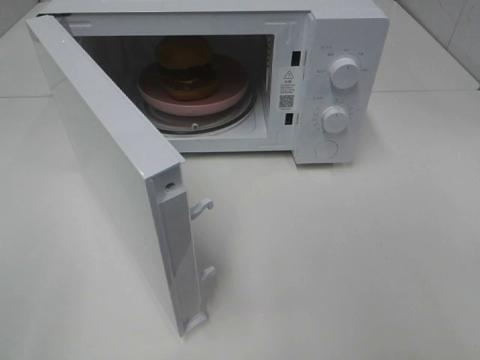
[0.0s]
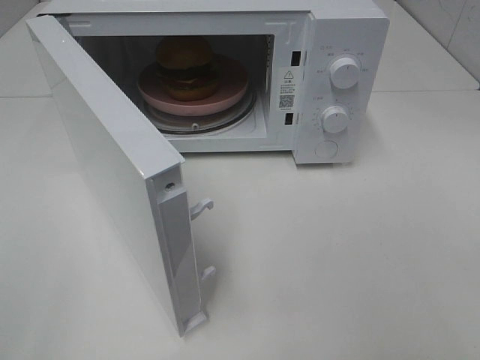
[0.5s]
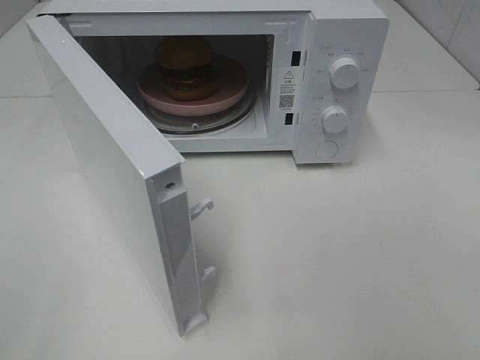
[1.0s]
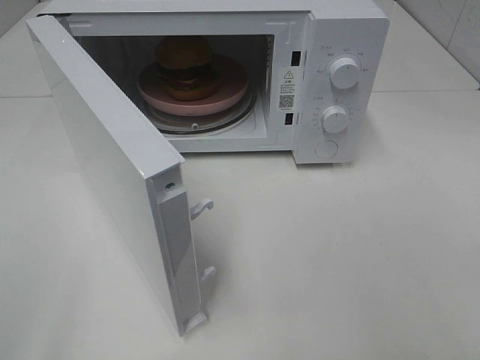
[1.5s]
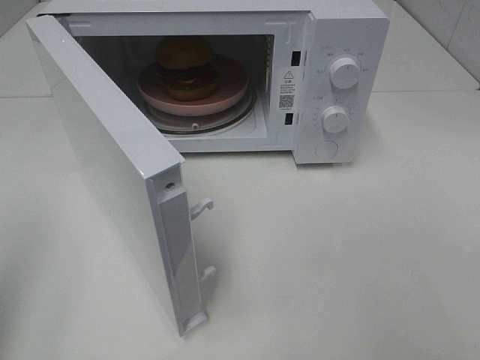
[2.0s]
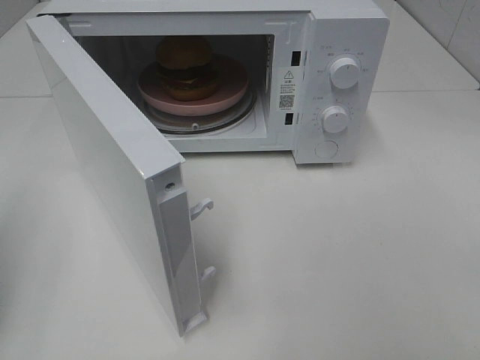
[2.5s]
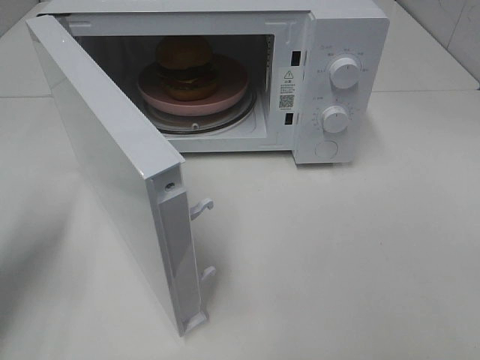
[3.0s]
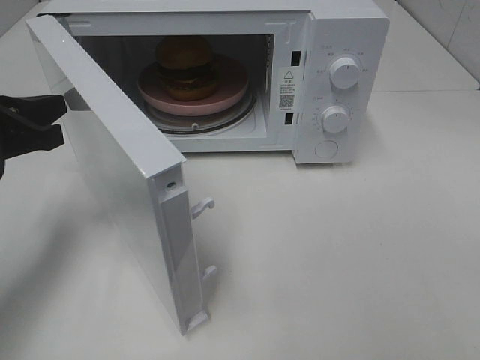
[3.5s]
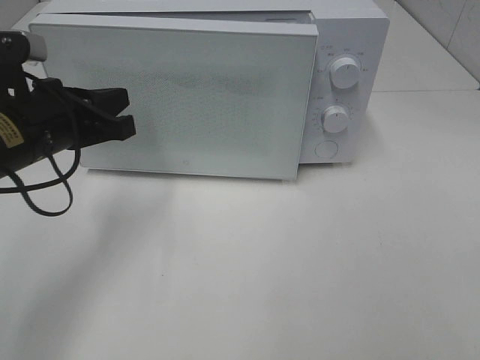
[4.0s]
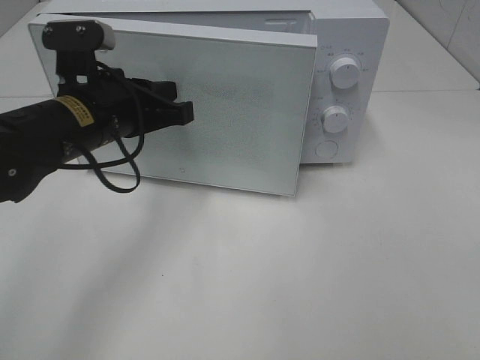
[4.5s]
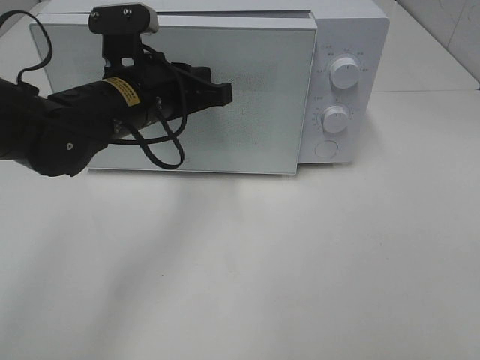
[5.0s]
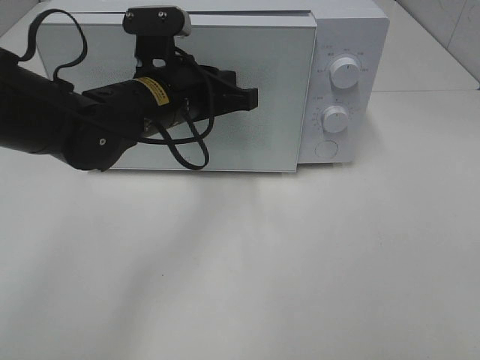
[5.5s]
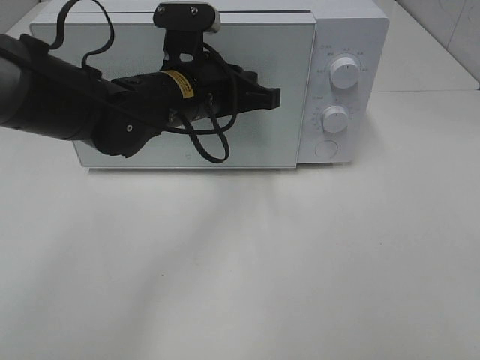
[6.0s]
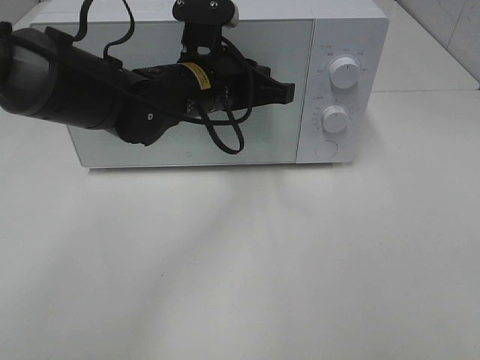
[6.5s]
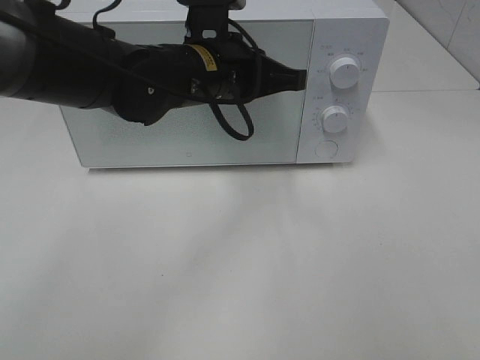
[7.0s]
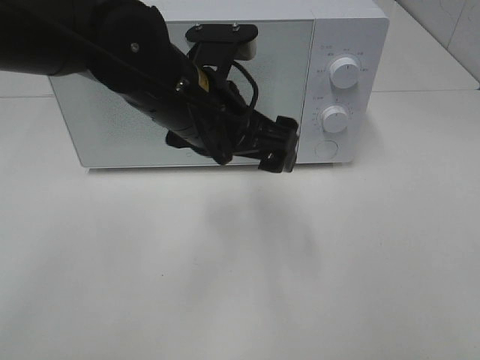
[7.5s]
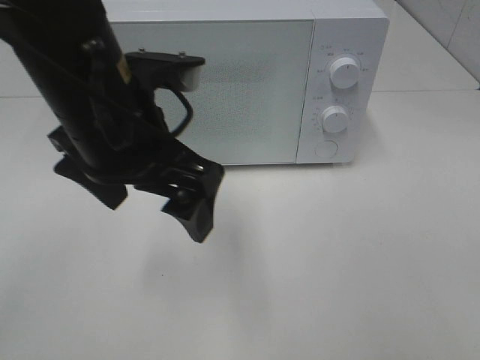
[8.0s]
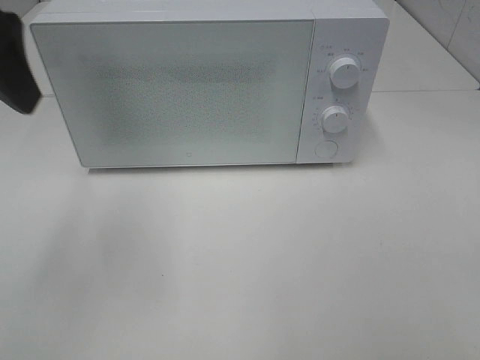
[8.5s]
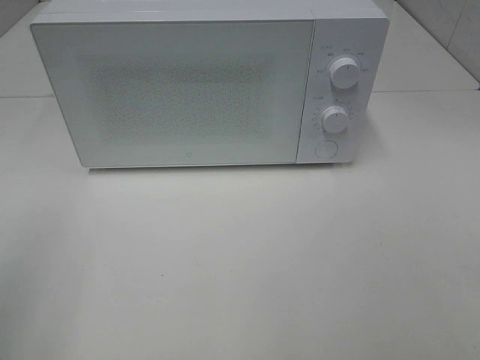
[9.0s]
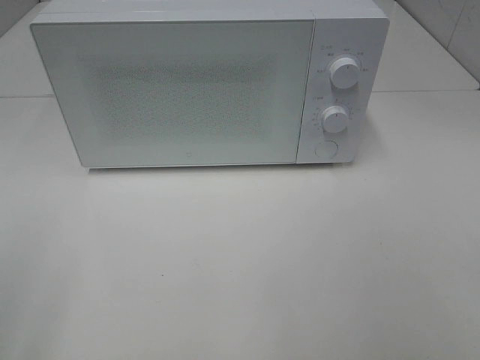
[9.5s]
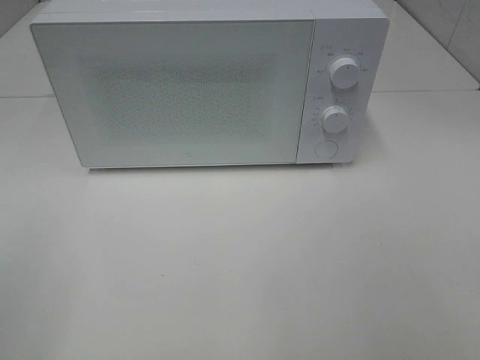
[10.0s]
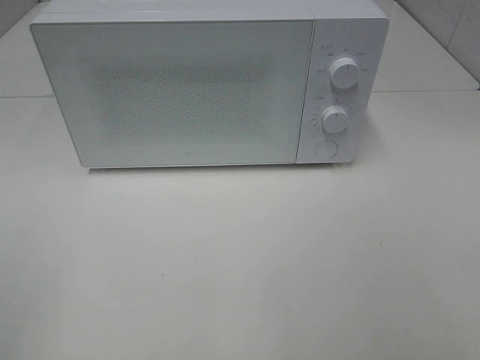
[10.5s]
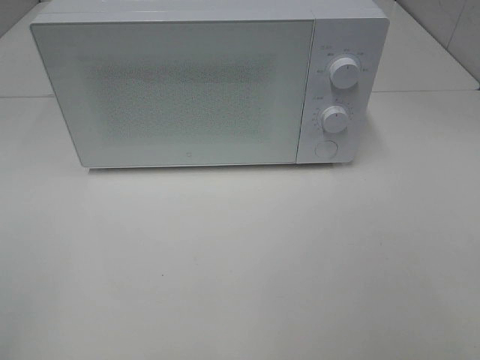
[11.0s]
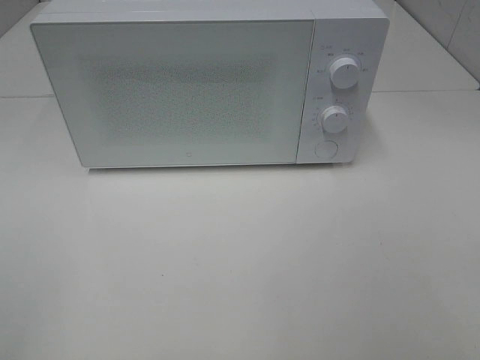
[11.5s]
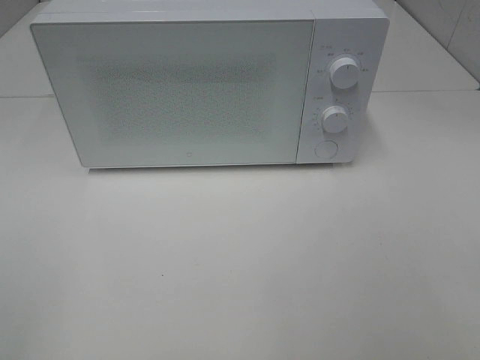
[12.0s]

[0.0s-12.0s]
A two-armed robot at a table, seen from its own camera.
Task of the whole recording: Heat the burger.
Step, 0.0s to 6.0s: Left hand: close the microwave door.
2.0s to 4.0s: The left gripper heads forward, to the right and downward, covering roughly 25 cm.
4.0s to 6.0s: The left gripper goes about 15 cm to the right and forward.
6.0s to 8.0s: The left gripper is displaced backward and upward by about 15 cm, and opens up.
8.0s to 10.0s: The left gripper goes approximately 30 cm to the left and backward.

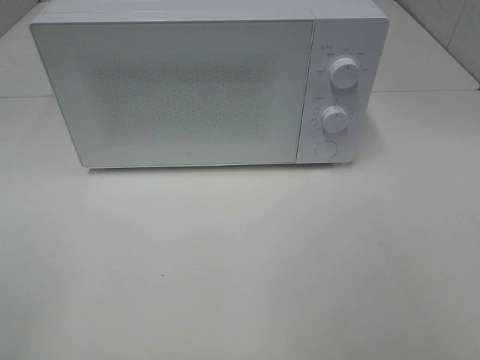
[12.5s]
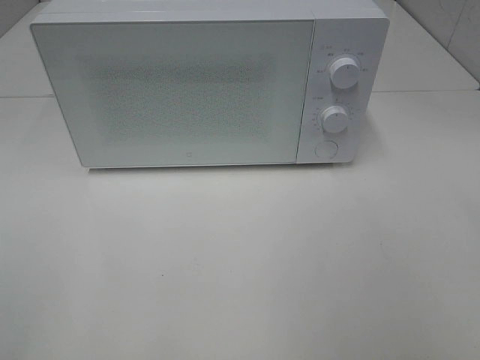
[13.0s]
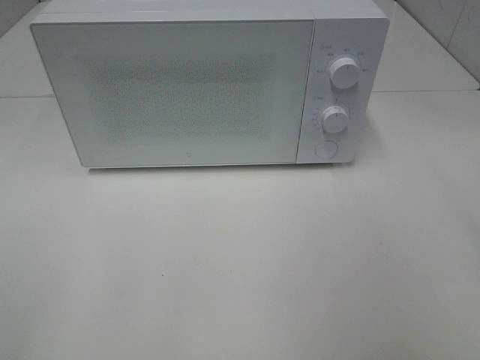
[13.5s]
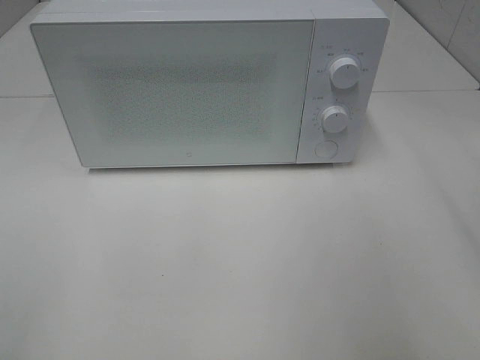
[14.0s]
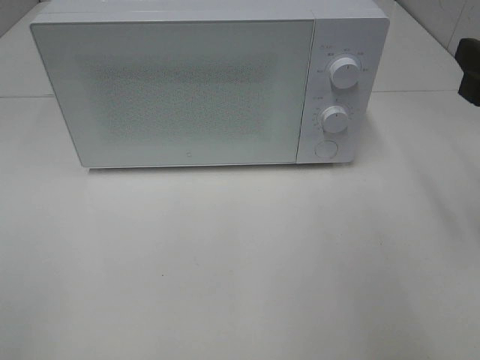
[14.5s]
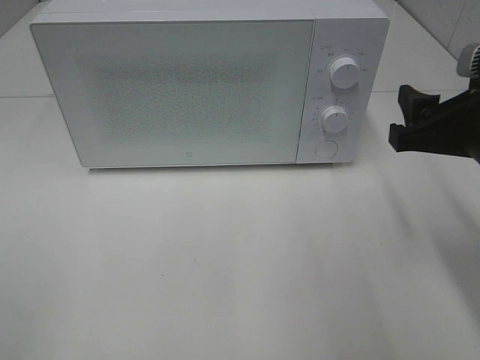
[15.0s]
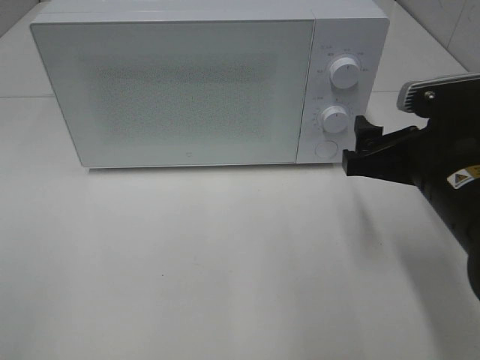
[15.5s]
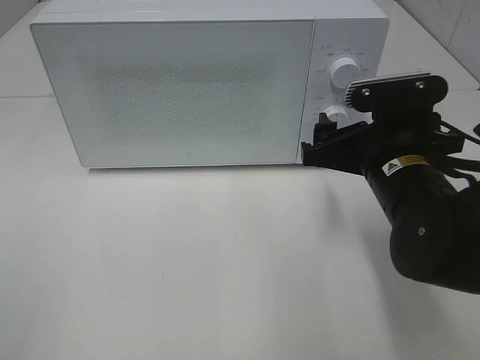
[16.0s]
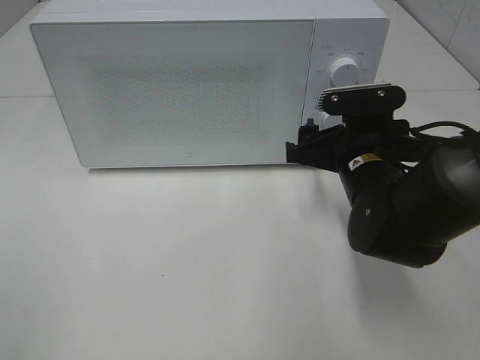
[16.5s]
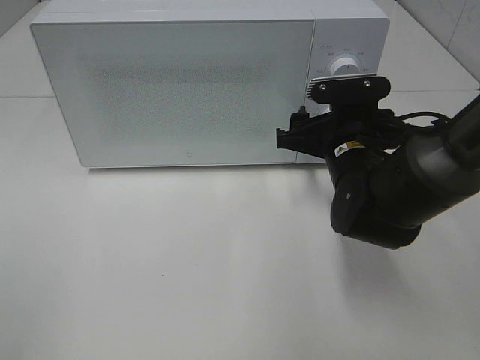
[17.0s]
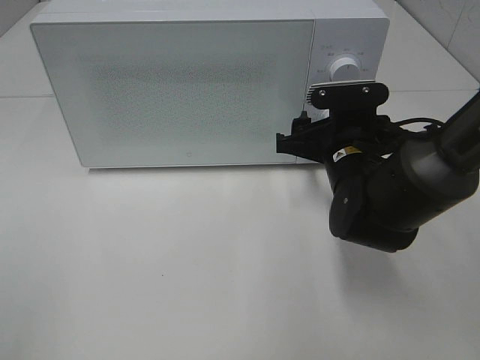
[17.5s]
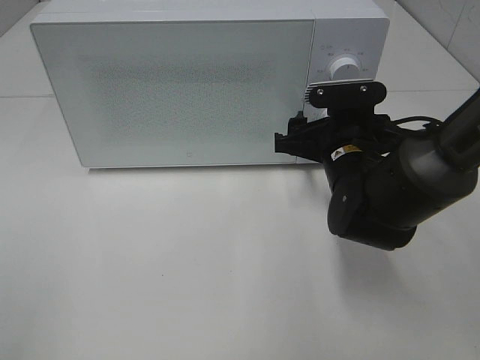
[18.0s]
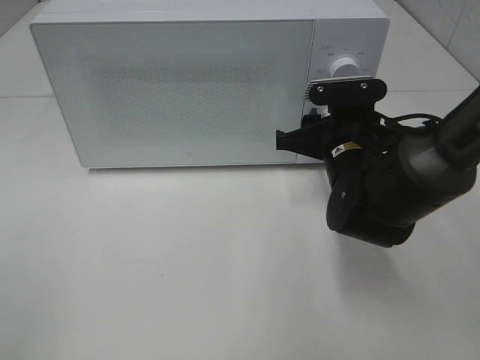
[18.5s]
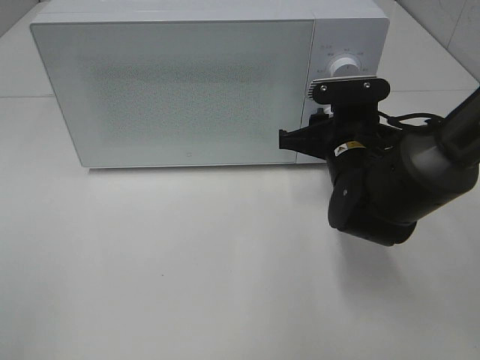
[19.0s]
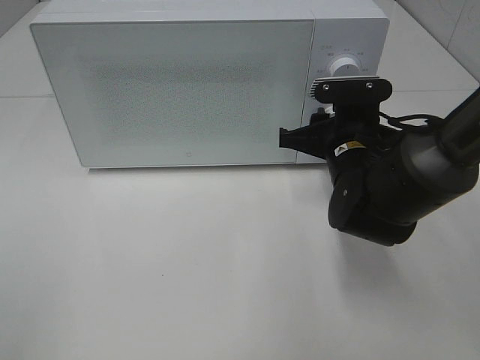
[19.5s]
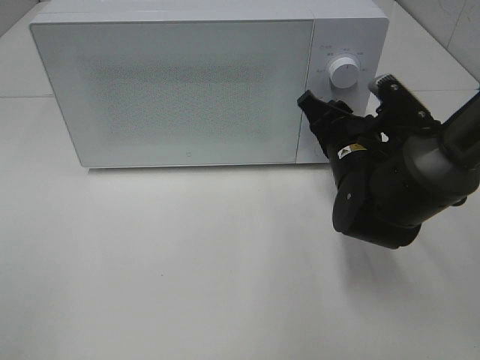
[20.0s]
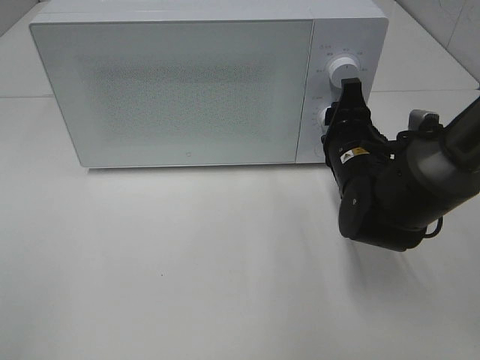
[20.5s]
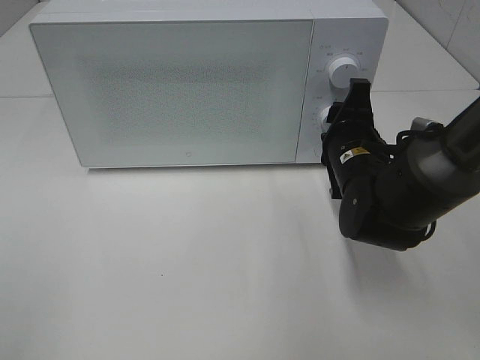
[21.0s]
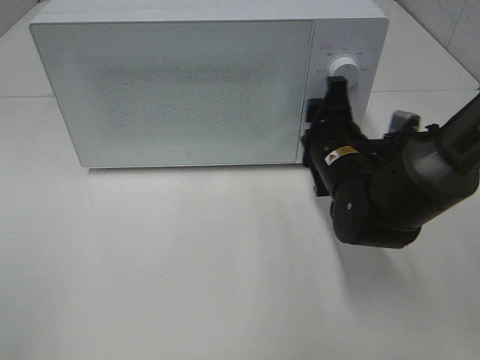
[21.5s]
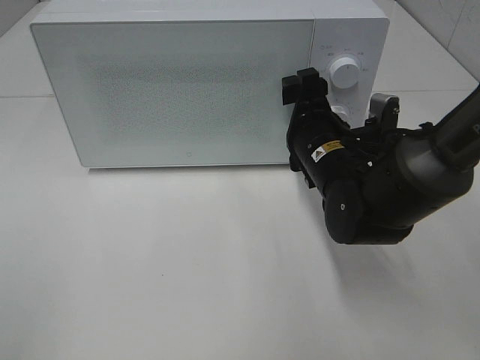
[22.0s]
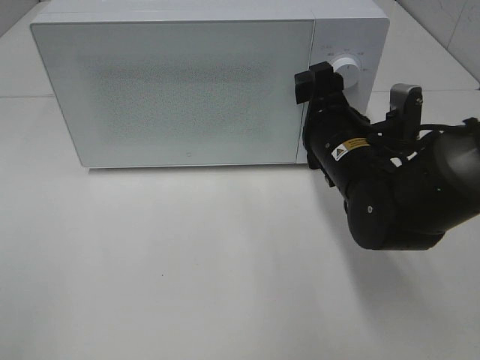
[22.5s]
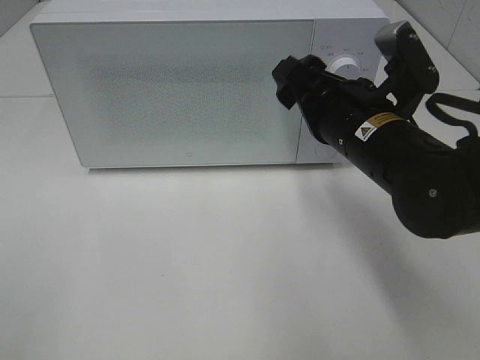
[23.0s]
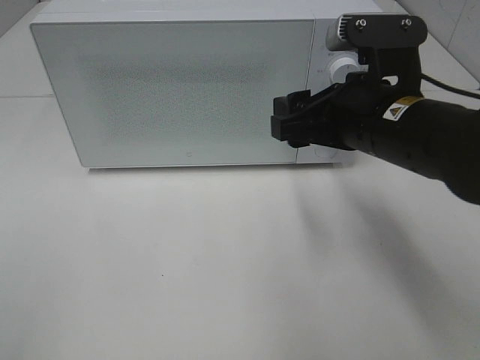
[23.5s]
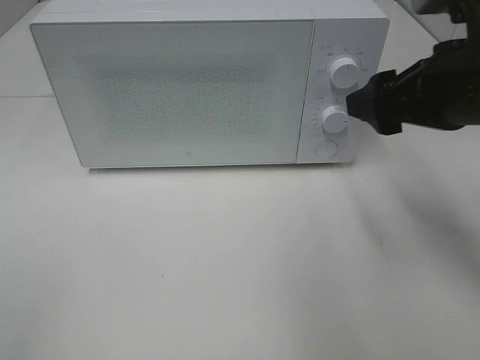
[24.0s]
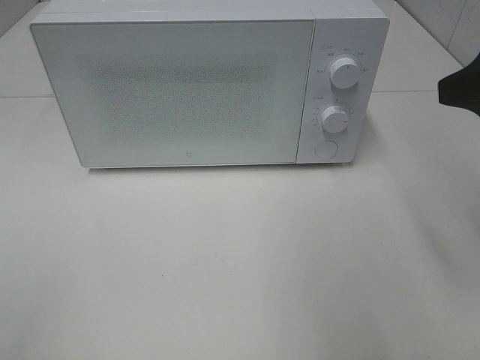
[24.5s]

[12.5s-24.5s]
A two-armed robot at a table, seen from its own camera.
Task of the whole recording: Heat the burger.
Step, 12.5s to 21.5s: Right hand: twist timer button.
12.5s to 14.5s: The right gripper shifts approximately 20 cm forward.
14.5s to 16.5s: The right gripper moves to the left, downward and forward, approximately 20 cm.
16.5s to 18.5s: The grippers move only a little.
20.5s to 22.5s: The right gripper opens up.
22.5s to 24.5s: The right gripper goes approximately 25 cm upward, to the right and backward.

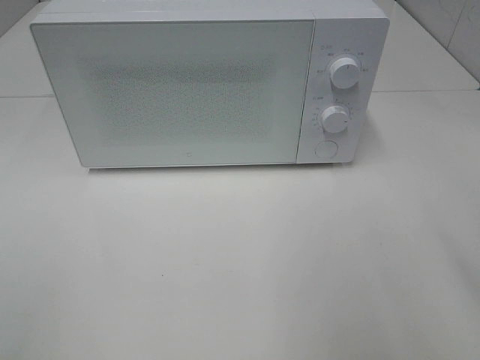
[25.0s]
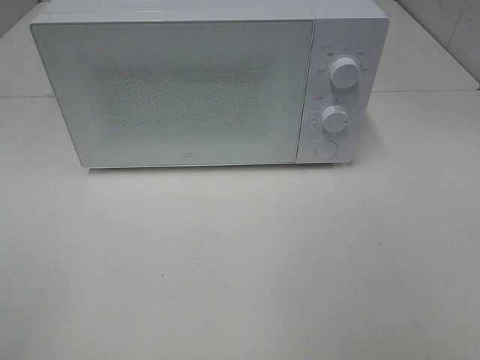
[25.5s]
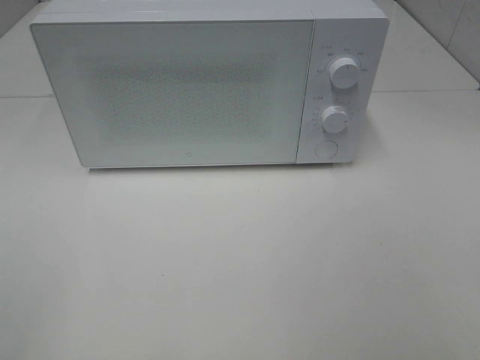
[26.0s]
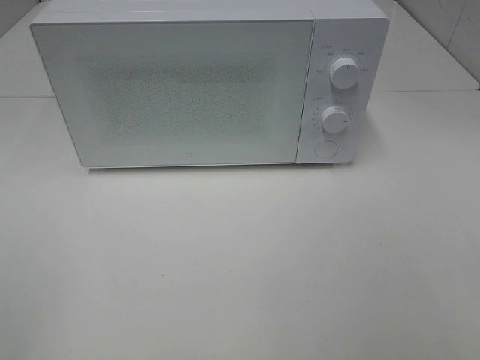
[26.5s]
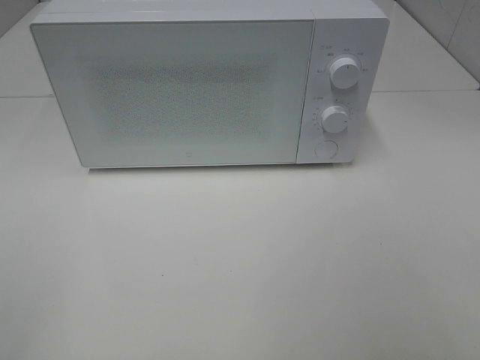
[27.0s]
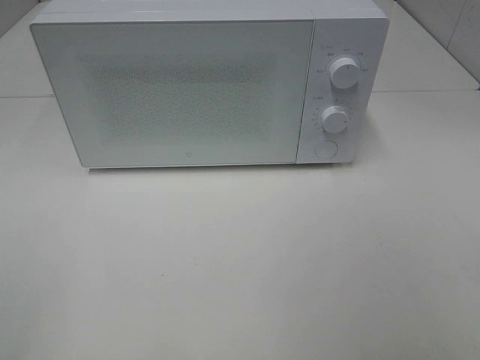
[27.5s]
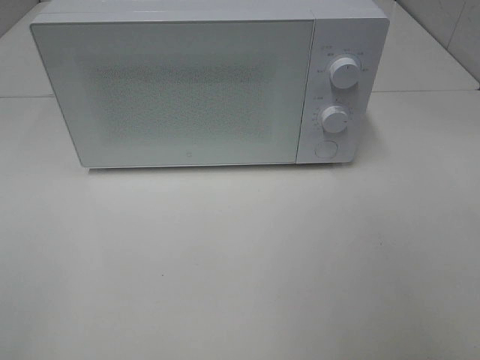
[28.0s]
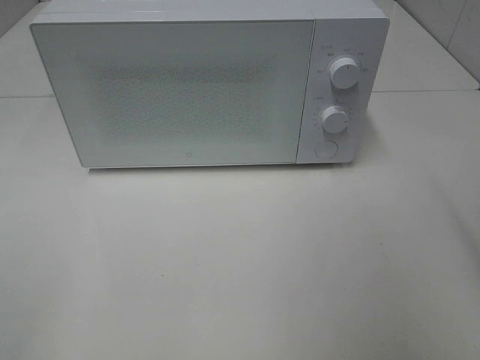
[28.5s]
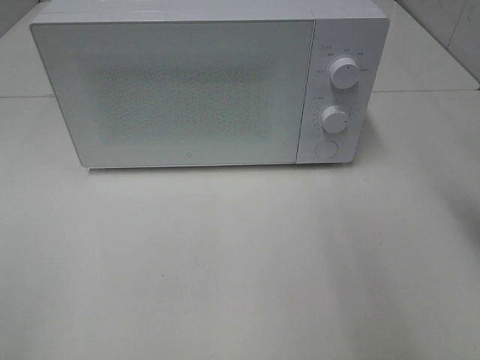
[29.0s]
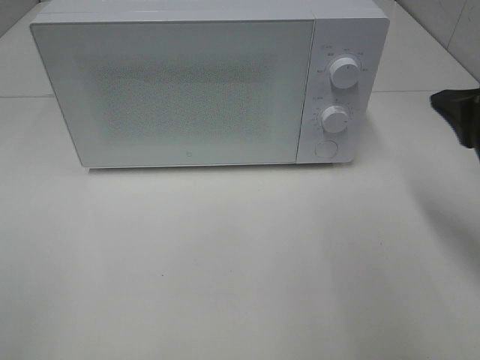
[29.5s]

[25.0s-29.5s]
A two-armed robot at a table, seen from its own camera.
Task of the whole recording: Heat the burger.
27.0s to 29.5s: The right gripper goes approximately 20 cm forward, and closes up.
